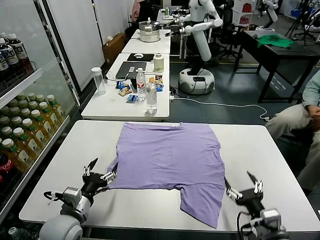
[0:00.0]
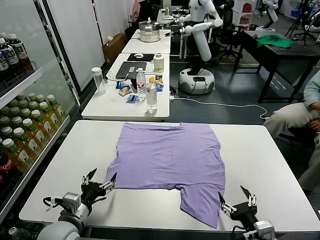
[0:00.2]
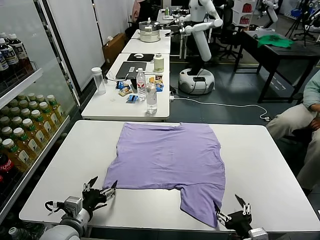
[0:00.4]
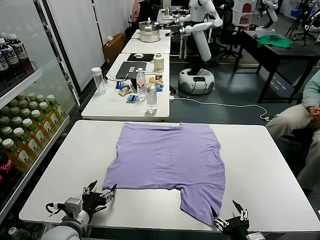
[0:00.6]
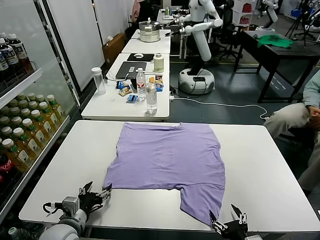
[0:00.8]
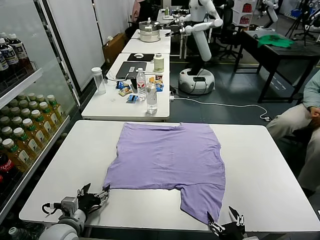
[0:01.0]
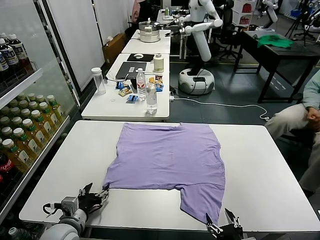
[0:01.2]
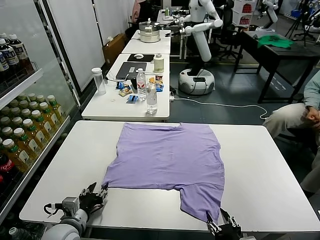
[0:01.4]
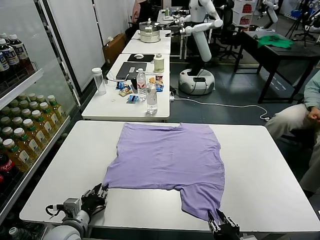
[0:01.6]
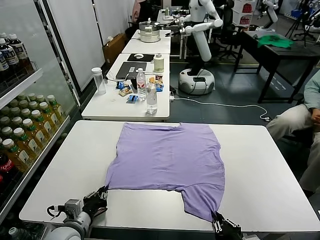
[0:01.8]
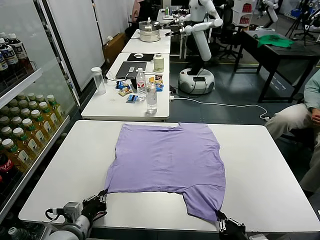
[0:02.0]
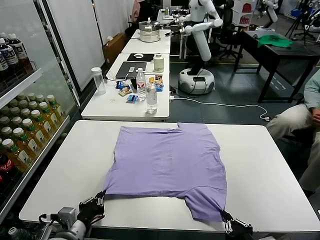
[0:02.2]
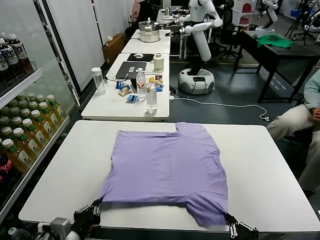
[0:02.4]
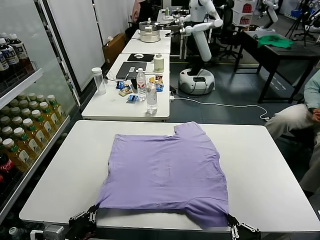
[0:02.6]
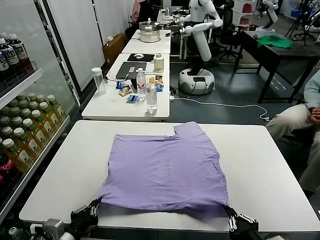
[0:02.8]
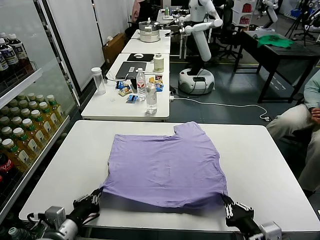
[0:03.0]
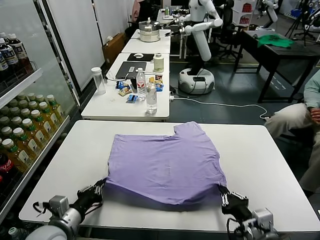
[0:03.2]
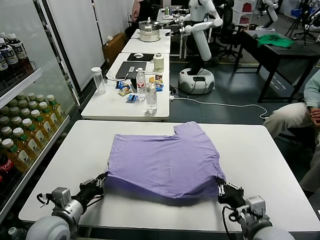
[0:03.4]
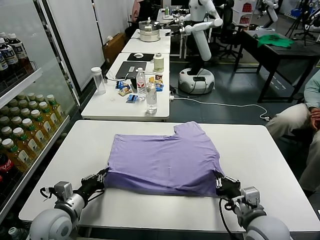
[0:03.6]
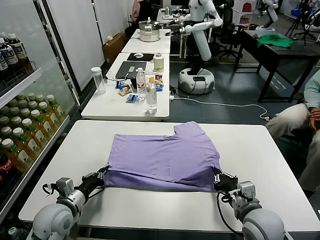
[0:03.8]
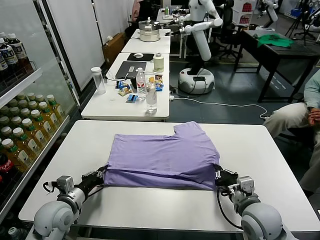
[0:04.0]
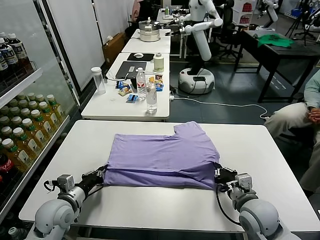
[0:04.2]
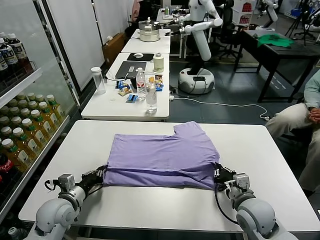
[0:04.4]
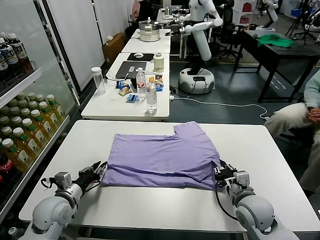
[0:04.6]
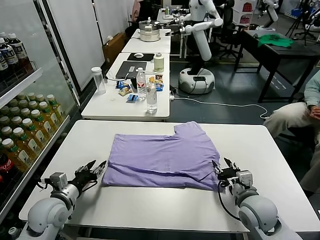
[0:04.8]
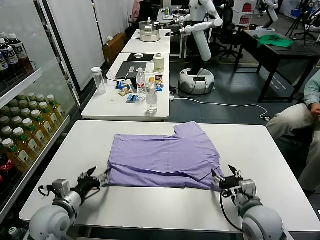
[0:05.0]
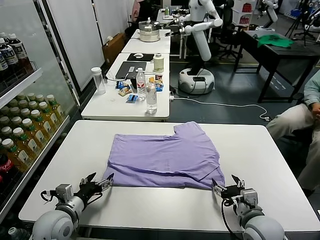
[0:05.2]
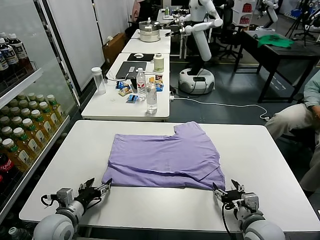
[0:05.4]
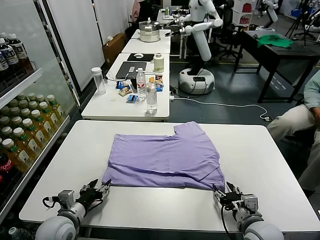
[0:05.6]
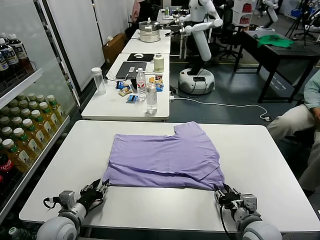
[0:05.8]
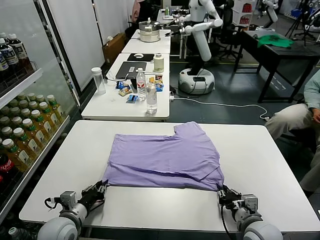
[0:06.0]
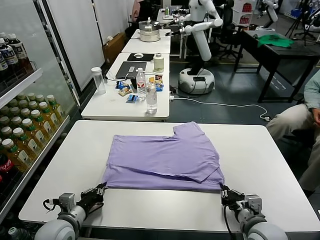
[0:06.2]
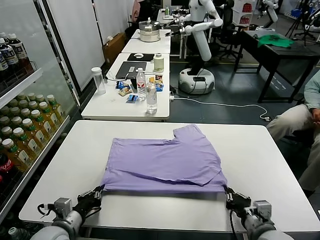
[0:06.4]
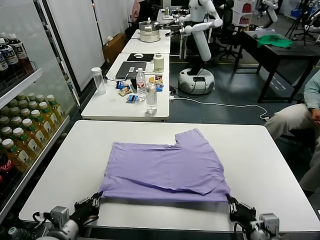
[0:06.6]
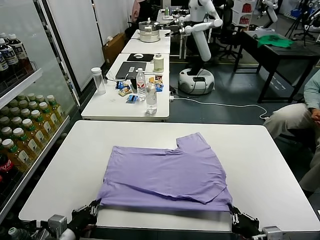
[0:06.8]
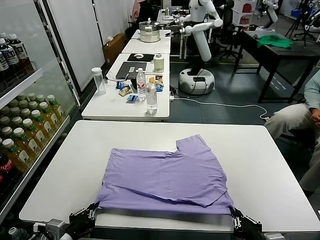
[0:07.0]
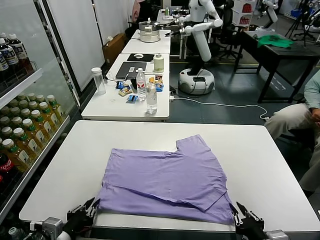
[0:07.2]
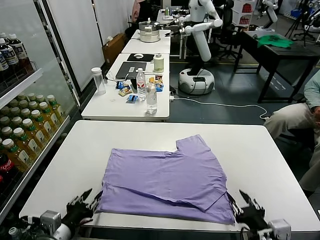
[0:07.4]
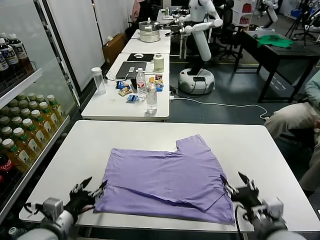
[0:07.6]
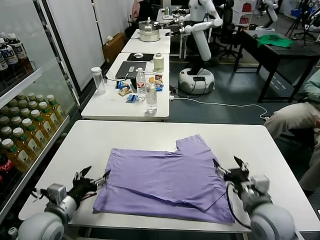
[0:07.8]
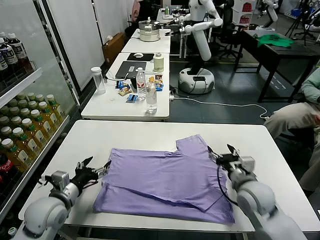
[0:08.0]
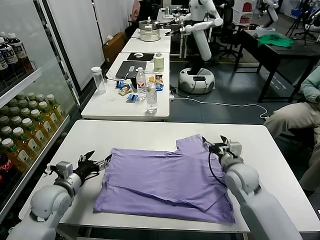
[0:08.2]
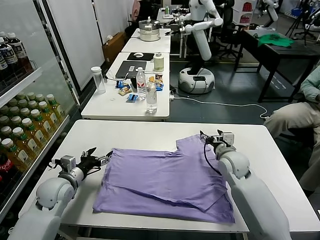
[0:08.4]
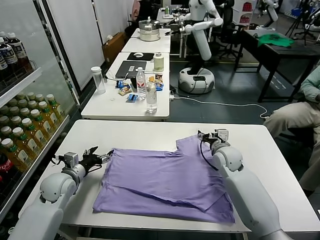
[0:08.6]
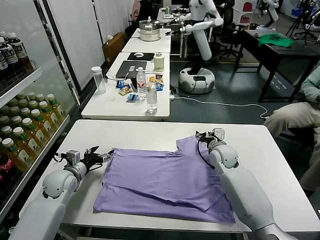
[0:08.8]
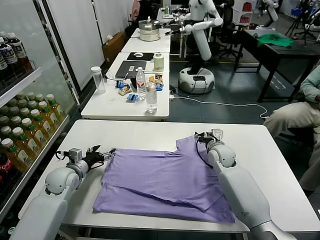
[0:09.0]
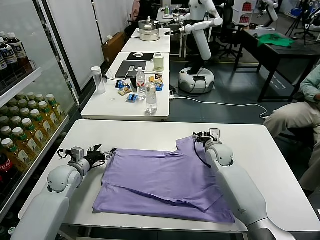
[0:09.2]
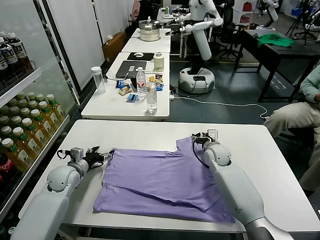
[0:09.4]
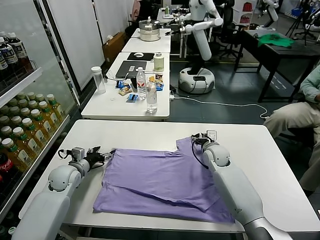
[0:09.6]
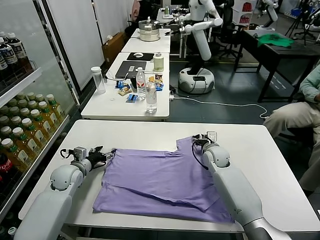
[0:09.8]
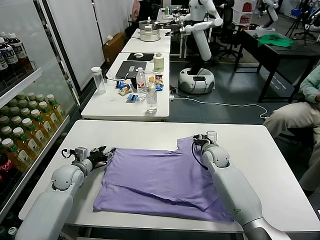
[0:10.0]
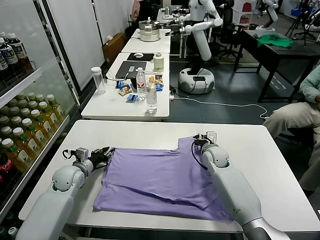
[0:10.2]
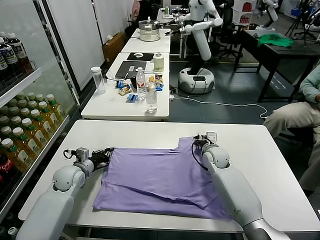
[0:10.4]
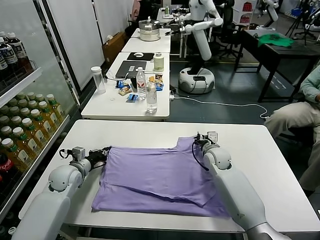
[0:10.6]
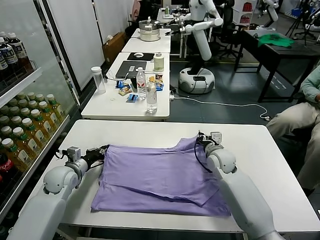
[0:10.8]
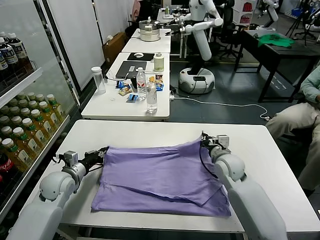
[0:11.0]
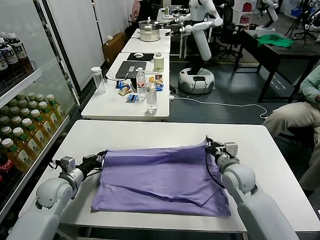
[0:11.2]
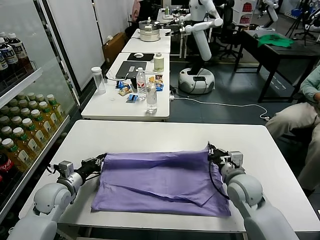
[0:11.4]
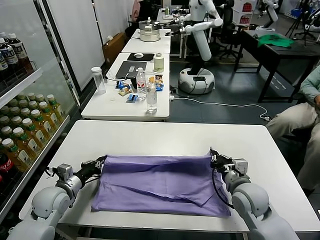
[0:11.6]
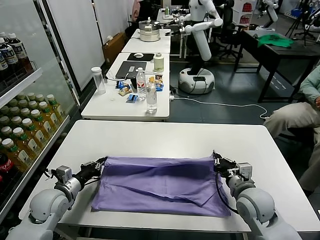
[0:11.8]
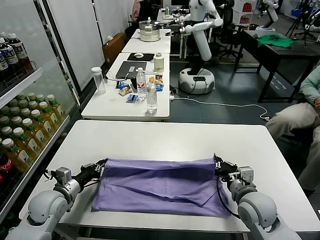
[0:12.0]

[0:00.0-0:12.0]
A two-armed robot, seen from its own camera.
Task of the whole recording: fold and organize the clothes.
Step, 0:00.0 to 0:01.8: use both grippers simultaneously to clamp the lower edge of the clothing fabric.
Step, 0:02.2 to 0:04.8: use both grippers to drag the lower edge of the fabric forward and fold it over the upper edge.
Step, 0:05.0 to 0:07.2: Drag the clothes downward with both gripper.
Step, 0:07.4 to 0:10.4: use both grippers simultaneously to clamp the upper edge of the clothing fabric.
0:01.6 to 0:03.0: The two grippers go approximately 5 cm upward.
0:03.0 to 0:04.4: The grippers both shift forward by about 15 cm.
0:04.4 to 0:06.0: Both grippers move backward, some 5 cm. The left gripper opens, then closes again. Meanwhile the right gripper opens, then closes once more.
0:06.0 to 0:07.6: The grippers both shift upward by roughly 5 cm. The right gripper travels backward and back again, some 10 cm each way, and opens up. Meanwhile the left gripper opens up.
0:07.6 to 0:09.0: Both grippers move forward, approximately 25 cm.
0:09.0 to 0:10.4: The left gripper closes its fingers; the right gripper closes its fingers.
0:10.4 to 0:12.0: The left gripper moves backward, approximately 10 cm. The right gripper moves backward, about 20 cm.

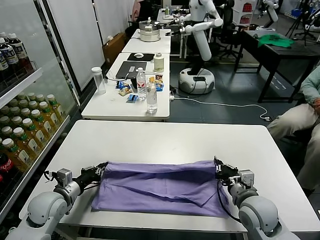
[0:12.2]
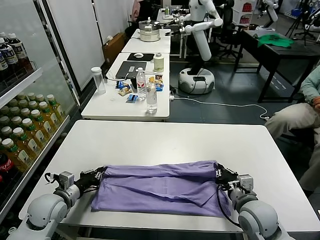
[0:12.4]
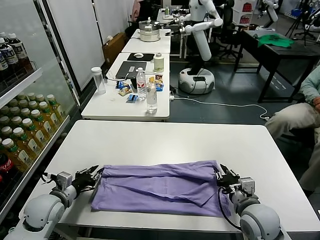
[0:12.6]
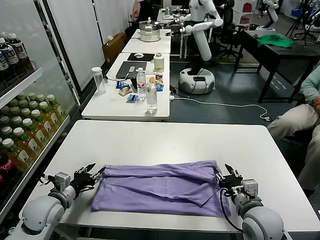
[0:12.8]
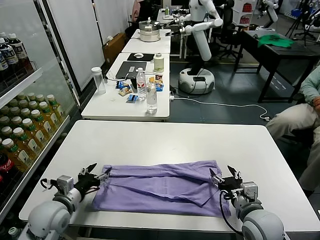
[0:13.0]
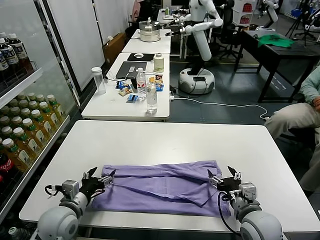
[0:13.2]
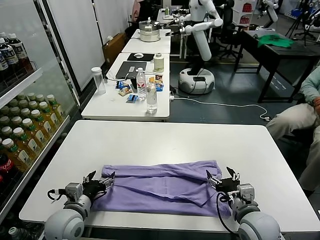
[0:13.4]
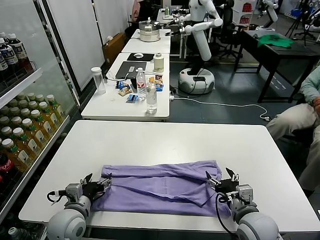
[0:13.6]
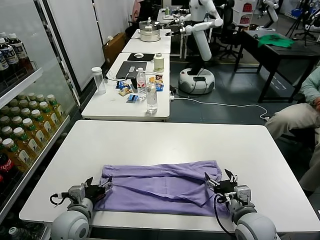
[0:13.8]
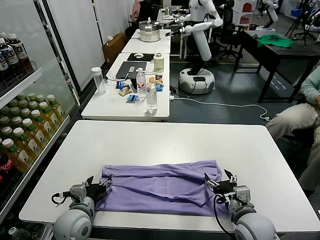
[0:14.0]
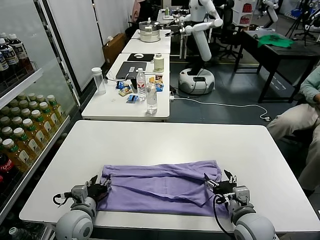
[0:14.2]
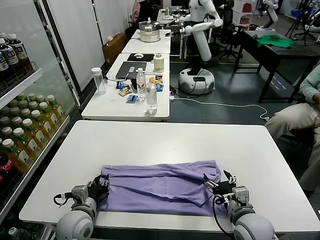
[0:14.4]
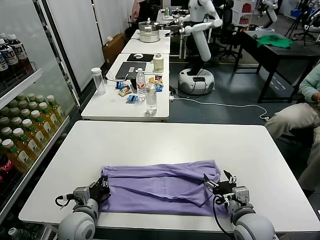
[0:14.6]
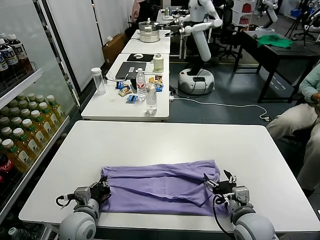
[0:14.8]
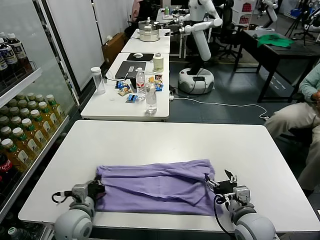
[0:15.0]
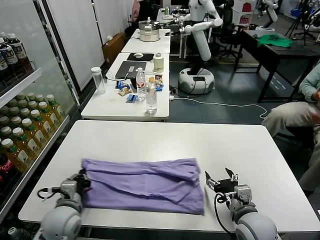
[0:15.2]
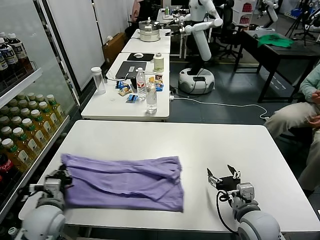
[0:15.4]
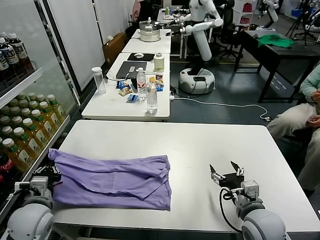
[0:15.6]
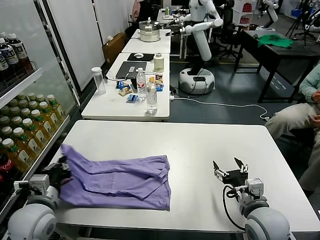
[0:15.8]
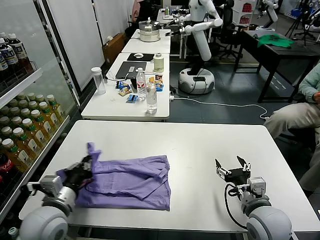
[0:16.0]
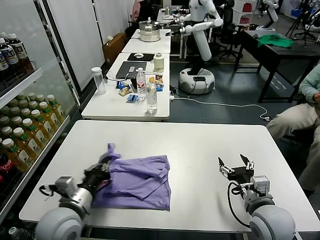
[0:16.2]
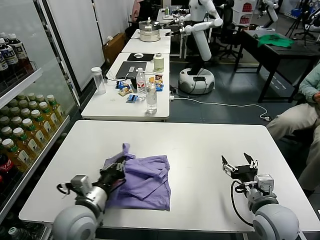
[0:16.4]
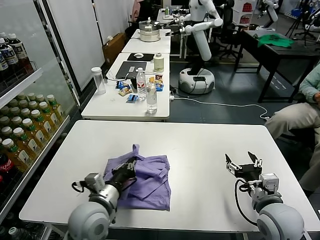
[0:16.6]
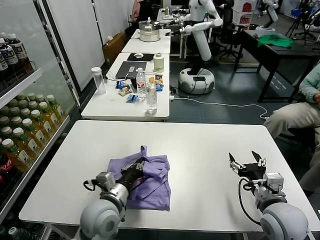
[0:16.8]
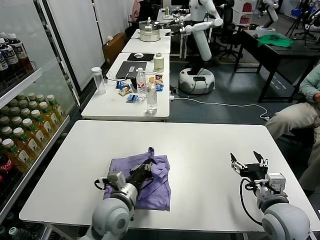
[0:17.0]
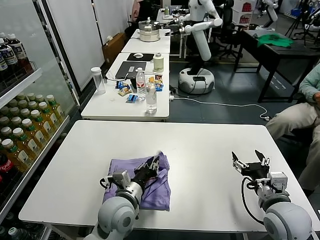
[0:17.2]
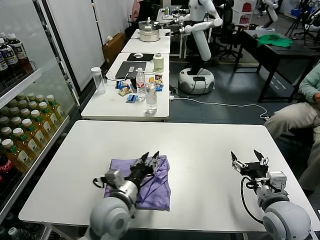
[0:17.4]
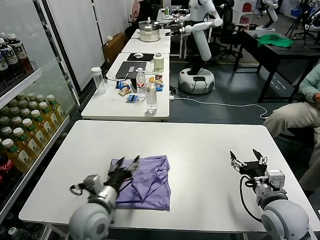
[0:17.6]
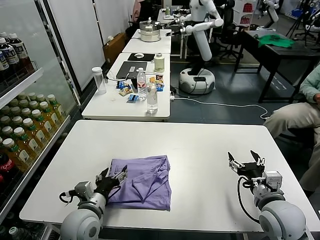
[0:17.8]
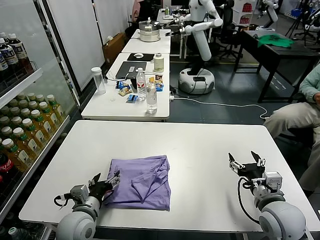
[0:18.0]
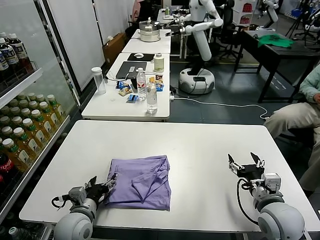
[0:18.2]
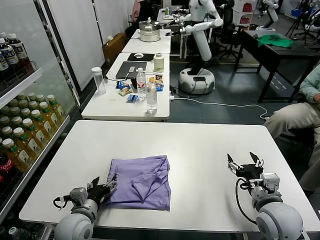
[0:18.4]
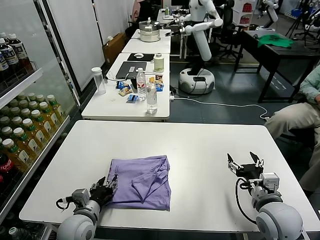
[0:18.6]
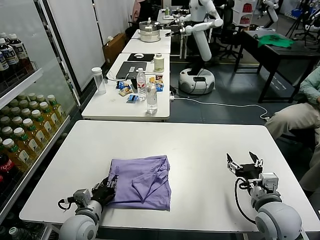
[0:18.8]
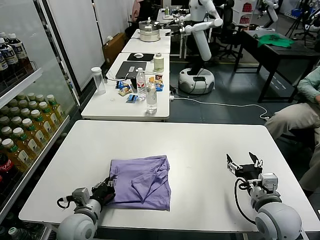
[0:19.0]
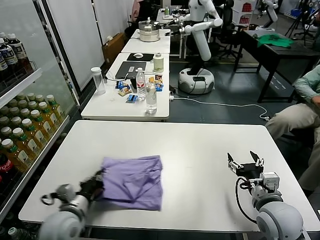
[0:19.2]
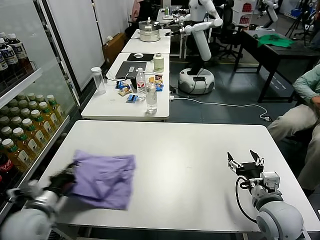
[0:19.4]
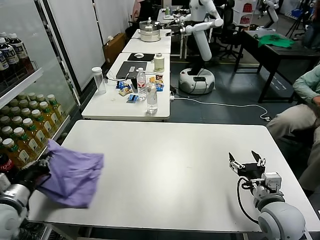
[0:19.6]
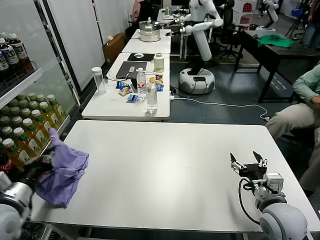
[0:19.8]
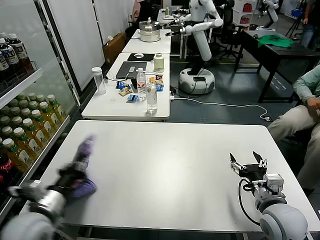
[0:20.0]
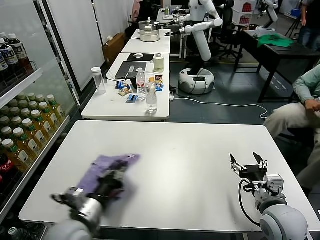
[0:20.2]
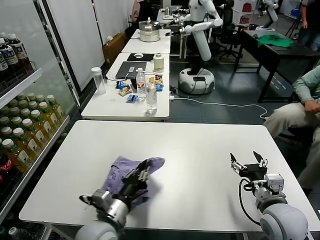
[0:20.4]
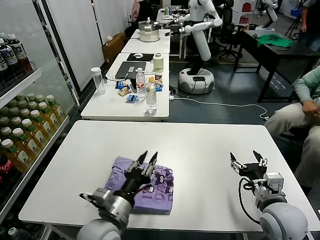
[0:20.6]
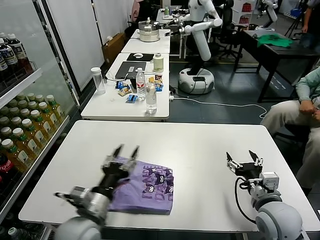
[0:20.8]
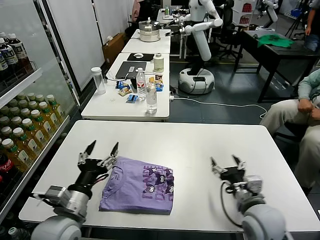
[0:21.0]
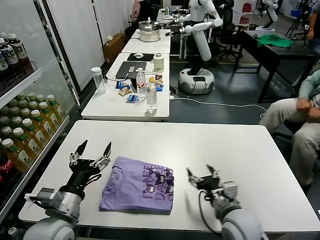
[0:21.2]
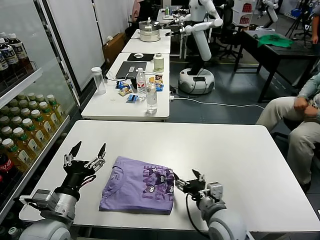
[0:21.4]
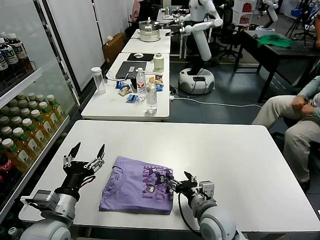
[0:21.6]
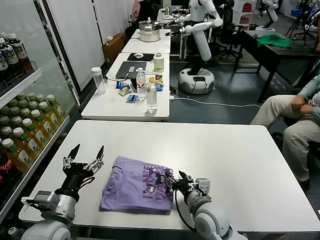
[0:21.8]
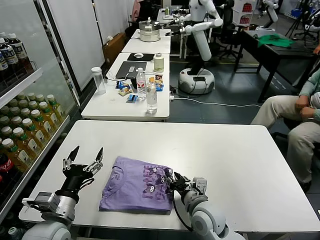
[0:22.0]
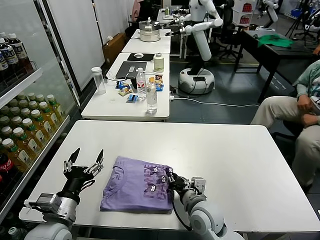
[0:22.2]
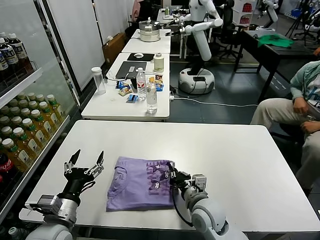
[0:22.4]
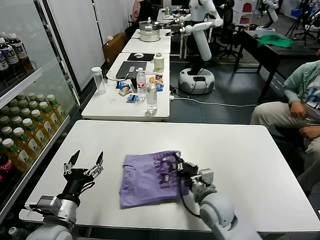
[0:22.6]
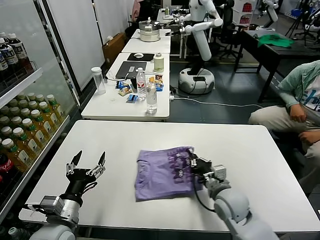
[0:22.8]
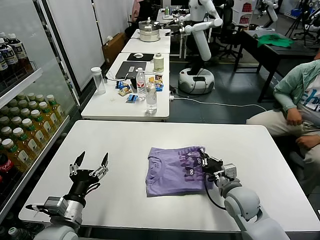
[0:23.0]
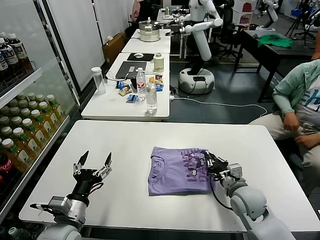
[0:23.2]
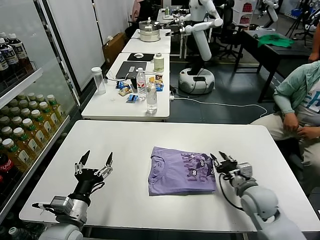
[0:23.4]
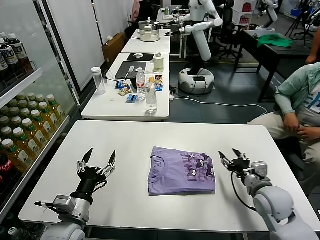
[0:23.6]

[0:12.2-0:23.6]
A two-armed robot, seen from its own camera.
Task of the whole recording: fold and organize the clothes.
Step, 0:12.8 to 0:14.6: use the left gripper to clamp the left edge of the fabric.
Step, 0:14.8 to 0:17.2: use the left gripper to drag the left edge of the fabric to the left and folds it over the right edge.
Step, 0:17.6 to 0:20.4: Flip the folded clothes over with left gripper.
Step, 0:20.6 to 0:23.2: Drag the clothes to the center of the table.
0:12.2 to 0:13.6: The left gripper moves to the right and backward, approximately 10 cm, and opens. Meanwhile the right gripper opens up.
0:13.6 to 0:15.0: The left gripper closes.
0:15.0 to 0:16.4: The right gripper is displaced upward by approximately 5 cm. Meanwhile the left gripper moves upward, about 10 cm, and moves some 10 cm to the left and comes back.
0:16.4 to 0:17.8: The left gripper shifts roughly 5 cm downward, moves roughly 10 cm to the right and comes back, and opens.
0:17.8 to 0:19.4: The left gripper is displaced to the left by some 10 cm, and closes its fingers.
0:19.4 to 0:20.8: The left gripper moves left and right over some 25 cm, changing direction 2 times, and opens its fingers.
0:20.8 to 0:22.2: The right gripper heads to the left and downward, covering approximately 20 cm, and closes up, while the left gripper travels to the left by roughly 10 cm.
0:22.2 to 0:23.6: The right gripper travels to the right by approximately 20 cm.
